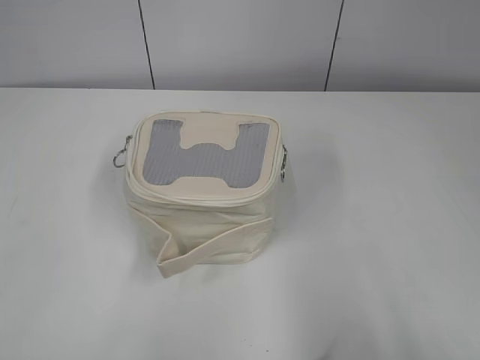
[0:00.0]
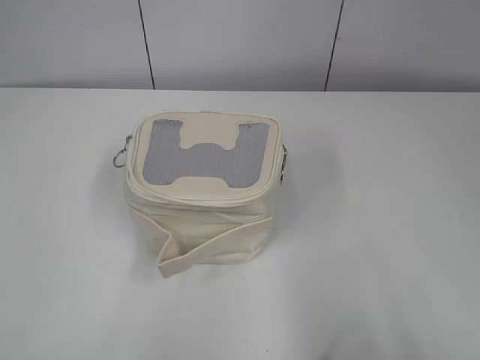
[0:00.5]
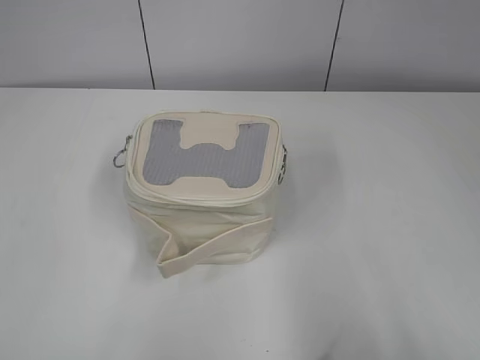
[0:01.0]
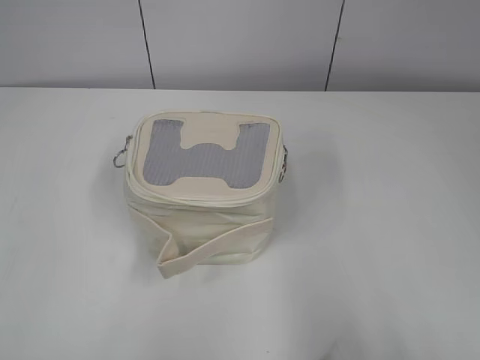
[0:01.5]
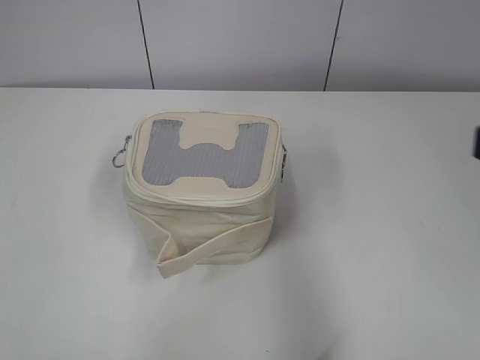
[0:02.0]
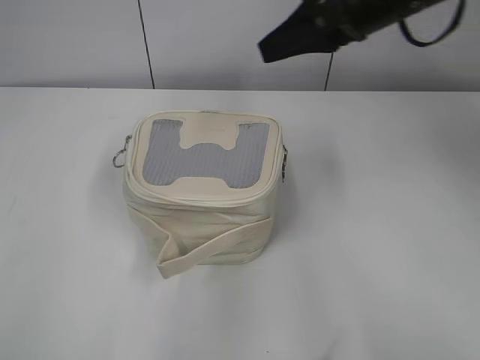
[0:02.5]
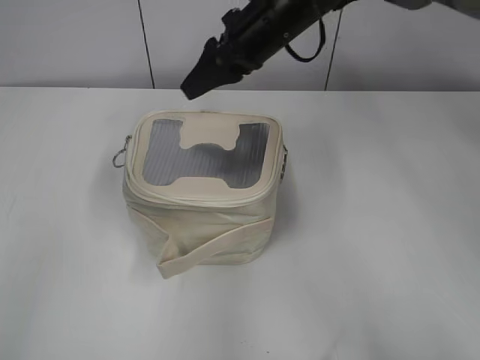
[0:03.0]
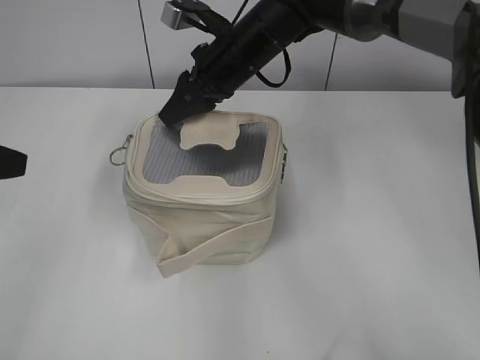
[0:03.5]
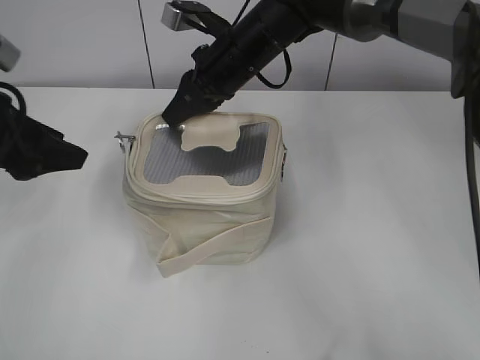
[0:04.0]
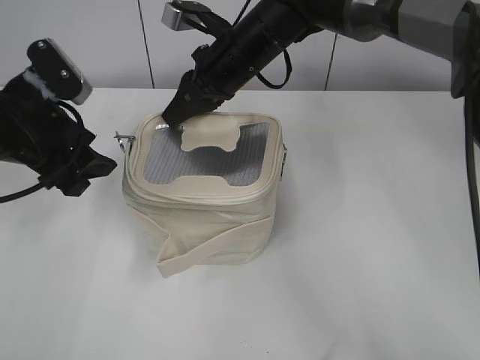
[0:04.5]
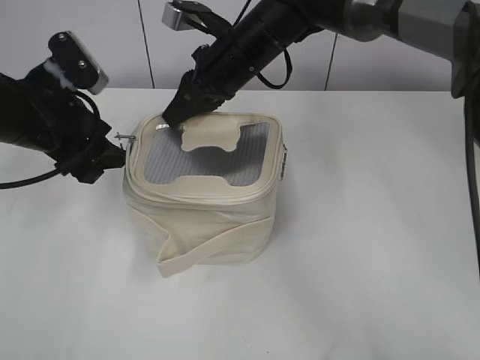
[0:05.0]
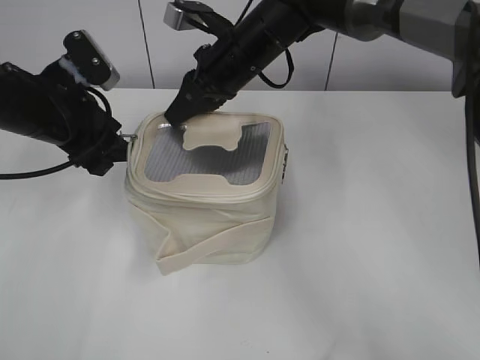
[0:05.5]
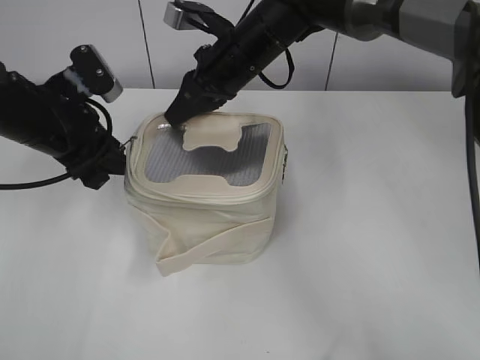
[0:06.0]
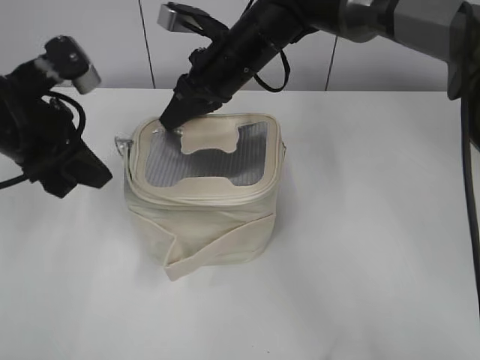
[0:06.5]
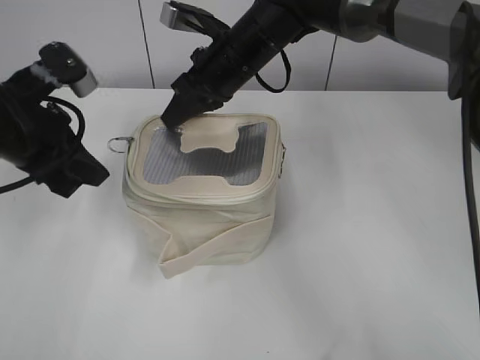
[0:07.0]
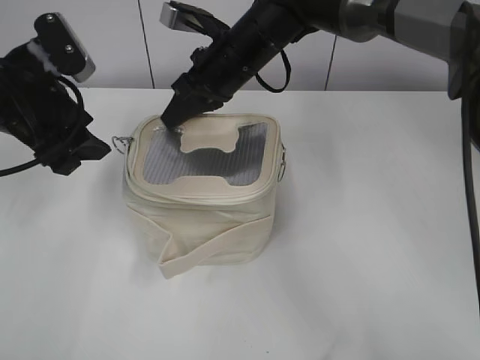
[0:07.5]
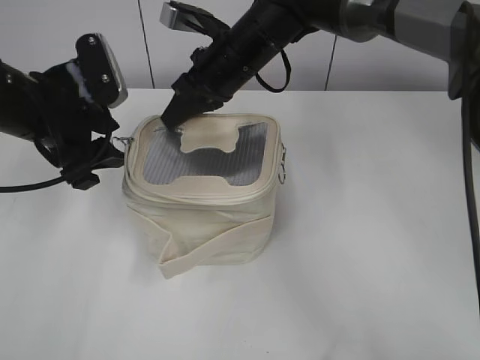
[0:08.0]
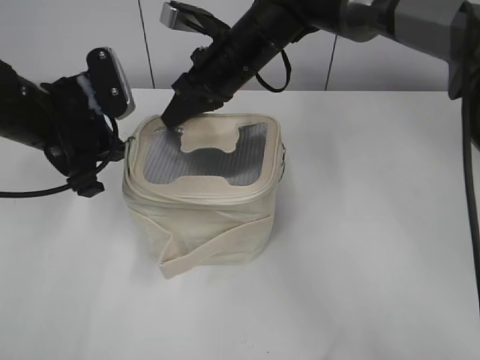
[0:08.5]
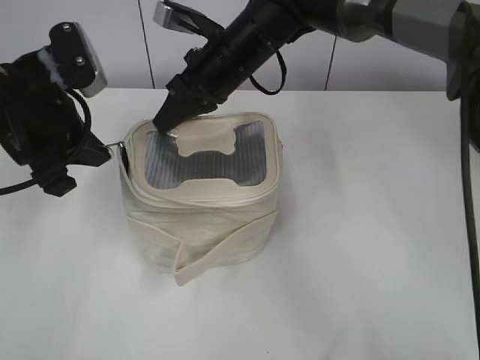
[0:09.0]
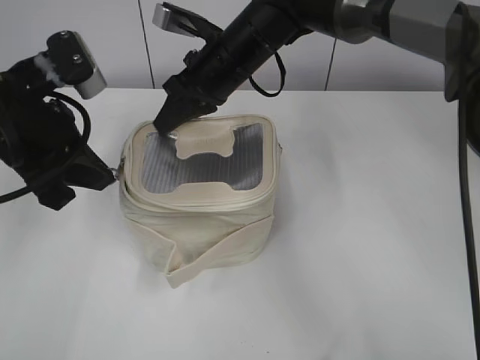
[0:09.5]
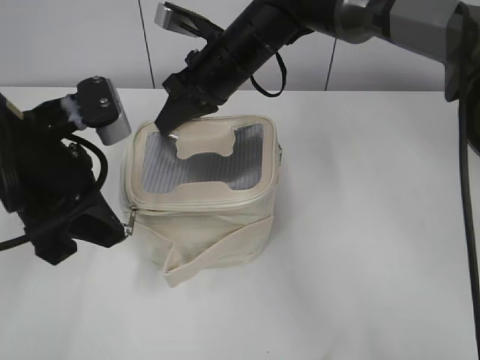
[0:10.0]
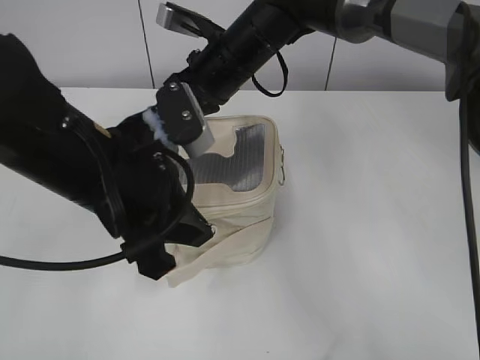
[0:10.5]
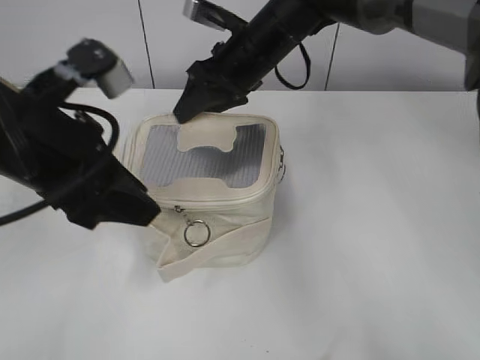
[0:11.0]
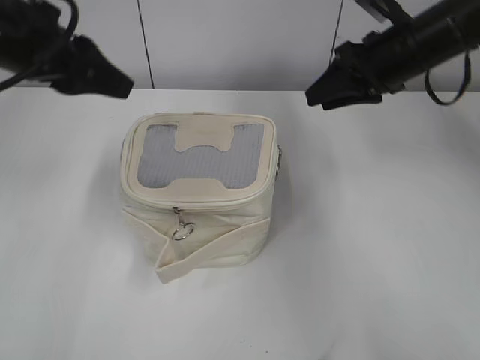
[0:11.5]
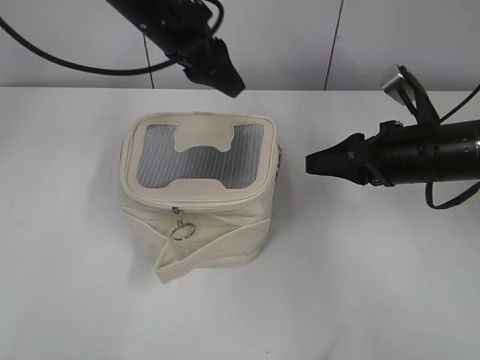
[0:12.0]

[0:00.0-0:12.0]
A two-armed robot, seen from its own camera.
Step, 0:00.0 to 0:10.5: Zip up the bag with your left hand.
0:02.0 to 0:04.0: The left gripper heads forward, covering approximately 25 cm, and opens its fingers, while the right gripper shifts approximately 40 cm forward and to the left, and closes its fingers.
0:04.0 to 0:06.0: The left gripper shifts about 10 cm forward and to the right, and closes.
0:06.0 to 0:08.0: The left gripper opens its fingers.
0:08.0 to 0:10.0: The left gripper moves backward, roughly 10 cm, and closes.
0:10.0 to 0:12.0: The right gripper travels to the right and backward by about 25 cm, and opens up; the left gripper shifts about 20 cm forward and to the right, and opens up.

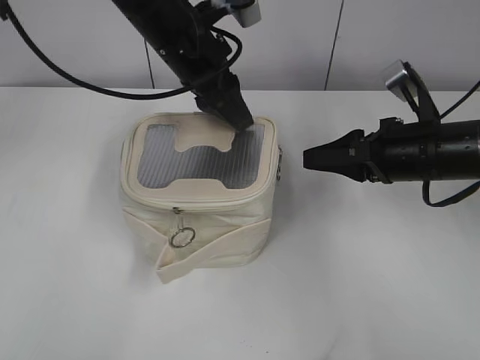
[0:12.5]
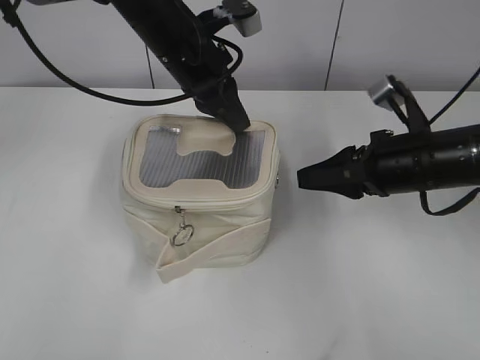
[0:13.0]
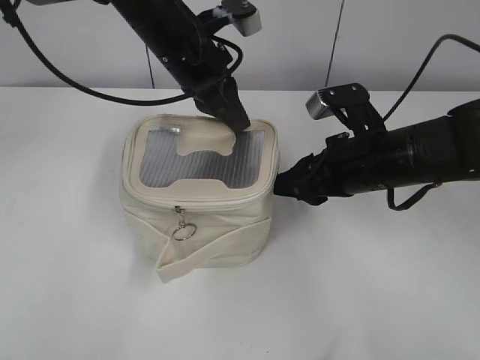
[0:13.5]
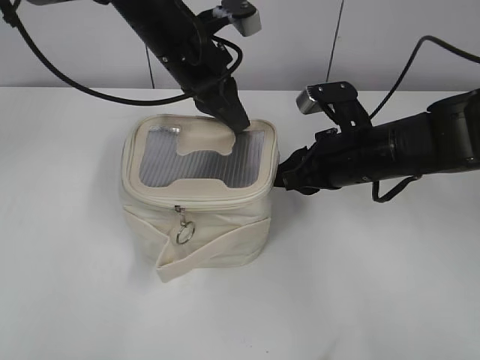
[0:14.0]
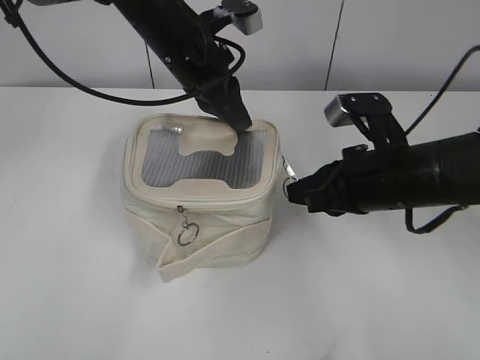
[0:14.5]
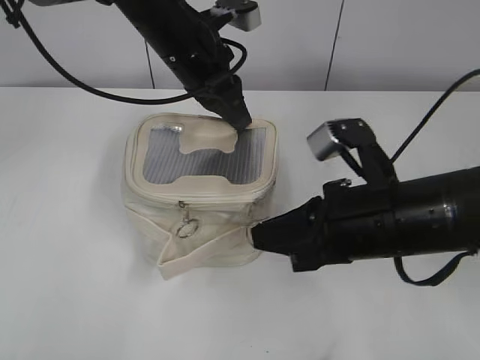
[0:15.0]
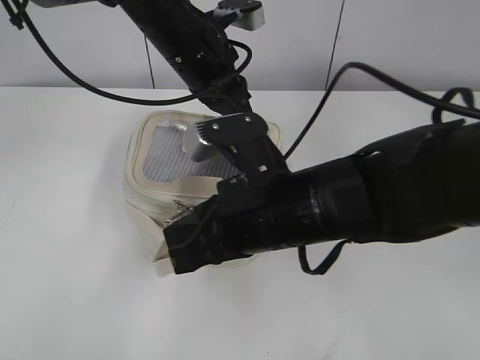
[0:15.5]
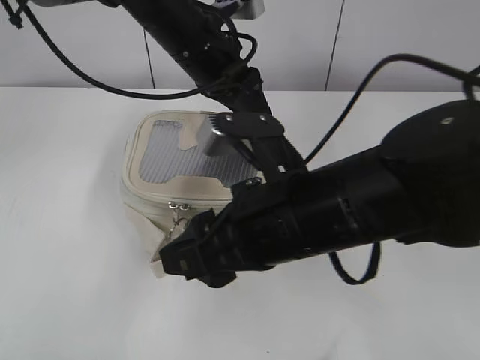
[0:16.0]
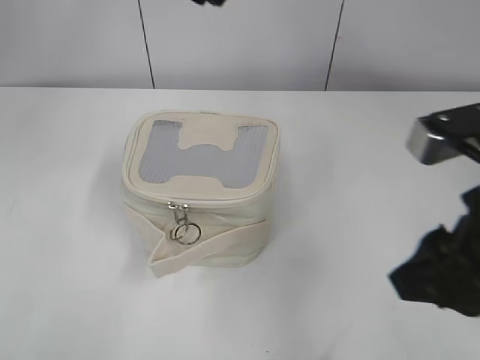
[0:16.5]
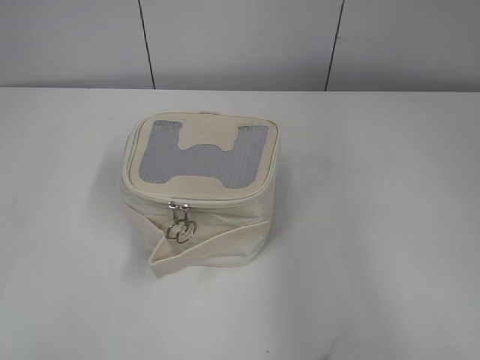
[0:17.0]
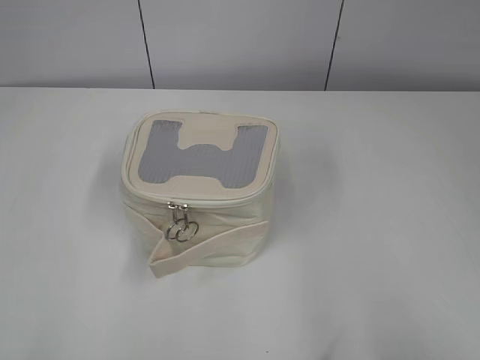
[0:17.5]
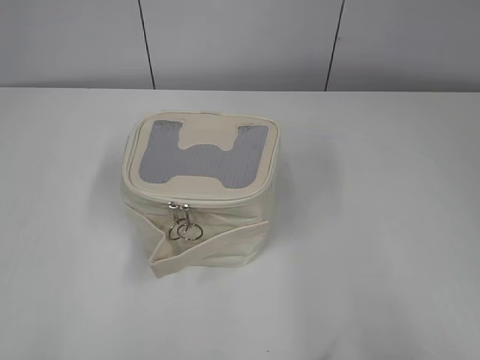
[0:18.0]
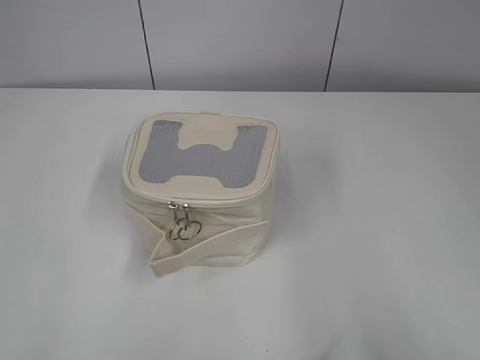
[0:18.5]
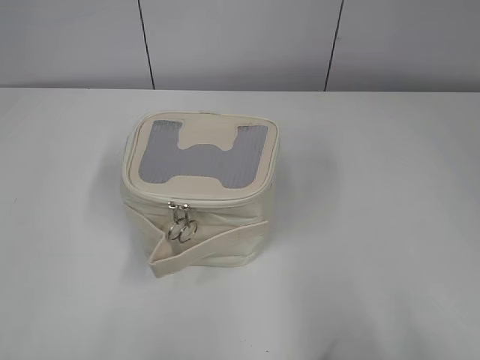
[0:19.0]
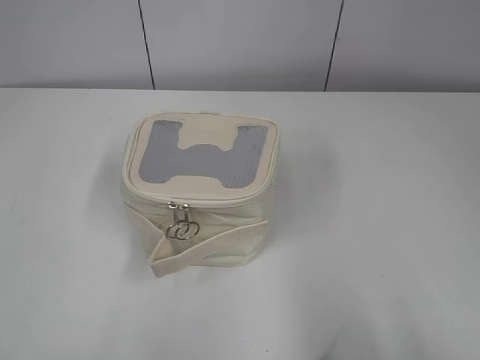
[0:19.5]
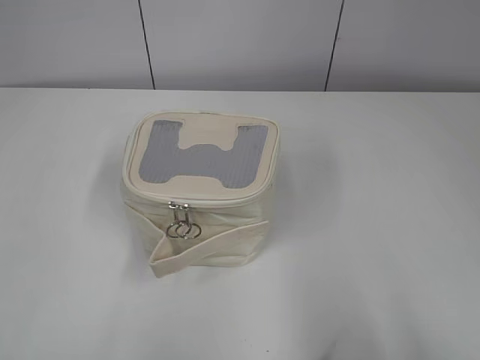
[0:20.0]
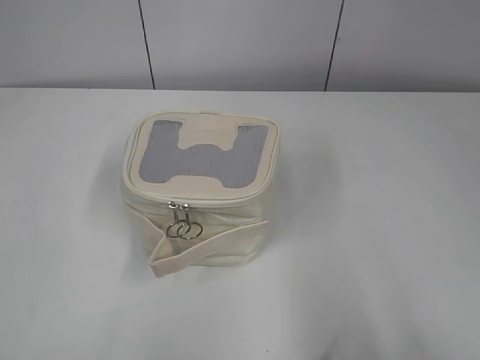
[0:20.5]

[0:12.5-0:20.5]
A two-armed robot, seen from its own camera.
Step, 0:12.5 to 0:15.5: Zip up the bag with your right hand.
0:12.5 to 0:14.5: The left gripper closes its fingers, while the right gripper shifts by approximately 5 cm, and closes its fingers.
0:14.5 to 0:16.5: The right gripper heads backward and upward, covering approximately 15 cm, goes to the left and returns, some 10 cm each way, and opens up; the left gripper goes roughly 15 cm upward and backward, and opens up.
0:16.5 to 0:18.5: The right gripper moves backward and to the right, about 20 cm, while the left gripper shifts about 40 cm backward and to the left.
